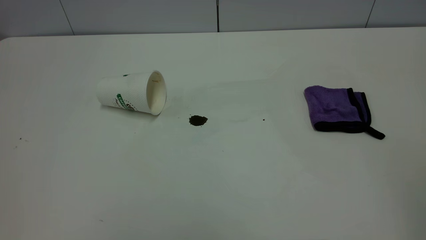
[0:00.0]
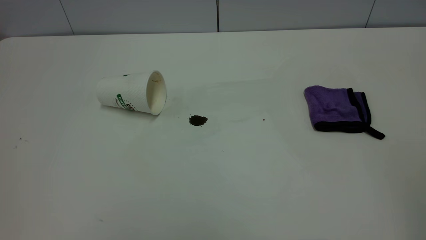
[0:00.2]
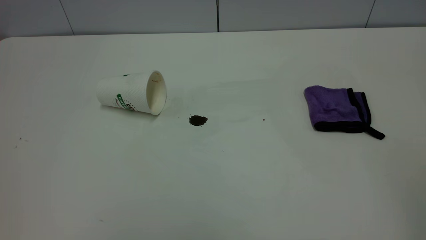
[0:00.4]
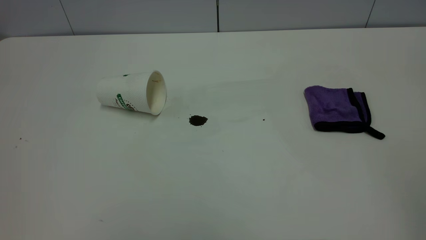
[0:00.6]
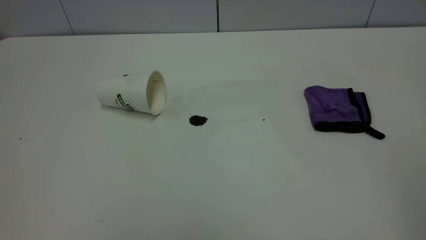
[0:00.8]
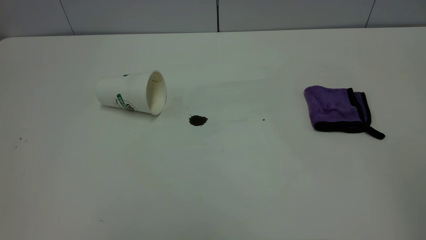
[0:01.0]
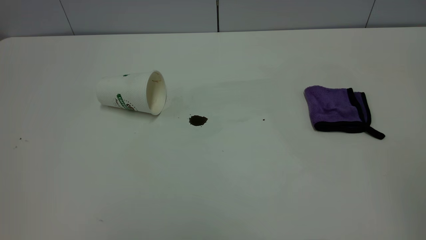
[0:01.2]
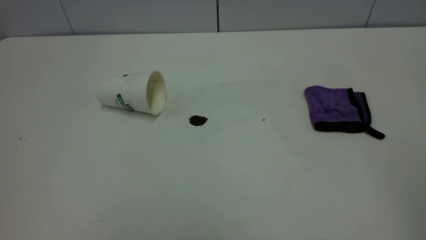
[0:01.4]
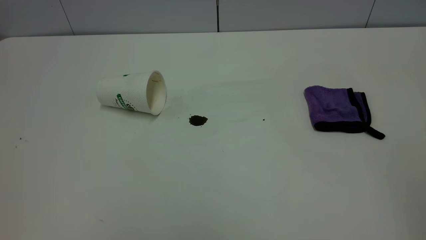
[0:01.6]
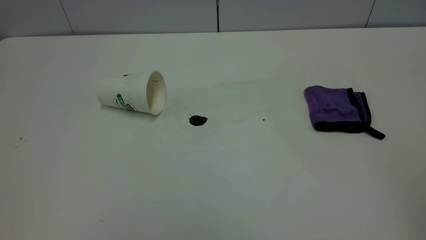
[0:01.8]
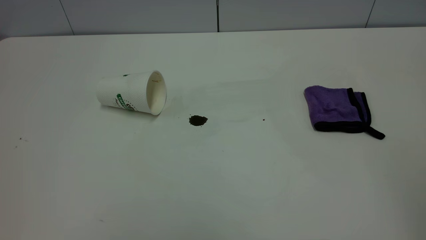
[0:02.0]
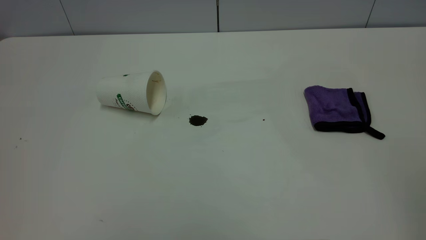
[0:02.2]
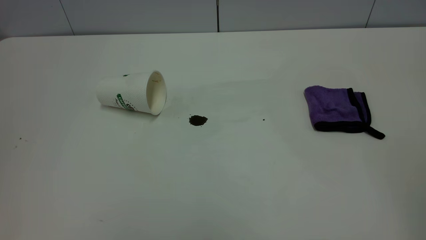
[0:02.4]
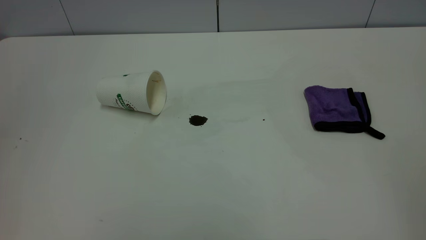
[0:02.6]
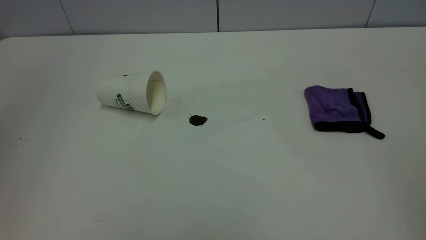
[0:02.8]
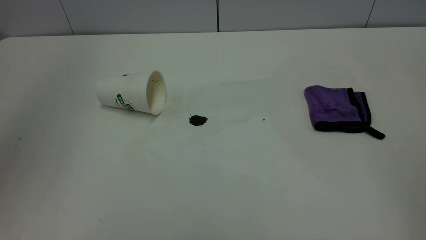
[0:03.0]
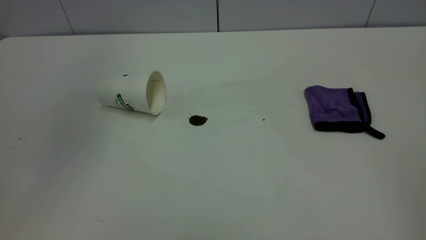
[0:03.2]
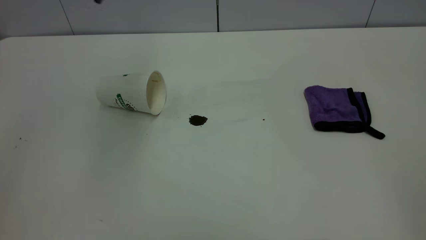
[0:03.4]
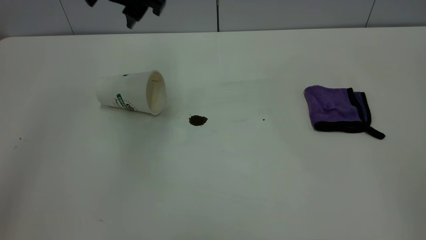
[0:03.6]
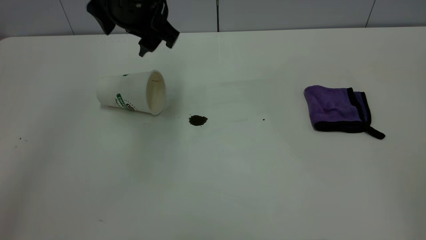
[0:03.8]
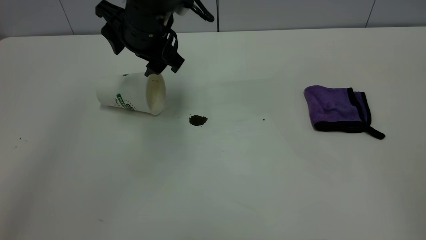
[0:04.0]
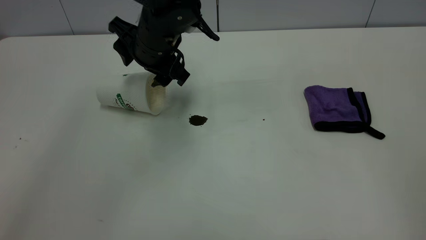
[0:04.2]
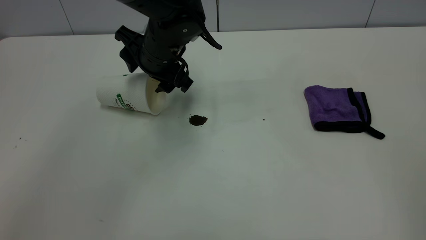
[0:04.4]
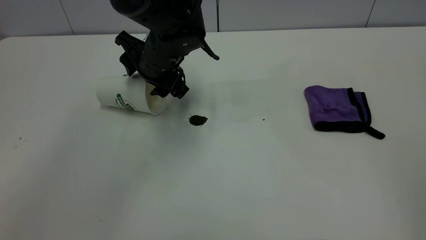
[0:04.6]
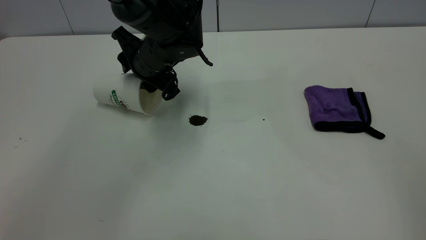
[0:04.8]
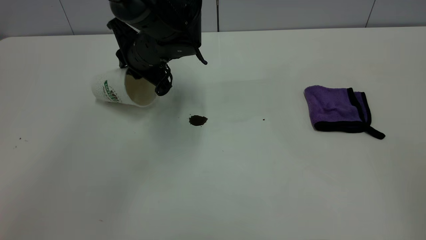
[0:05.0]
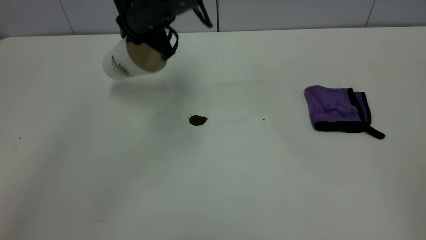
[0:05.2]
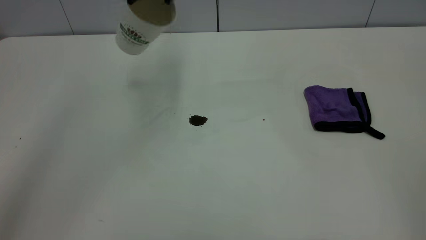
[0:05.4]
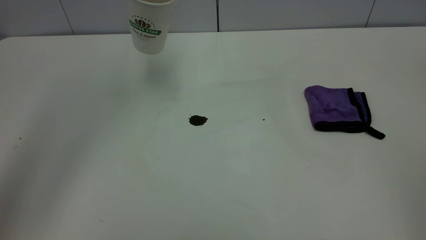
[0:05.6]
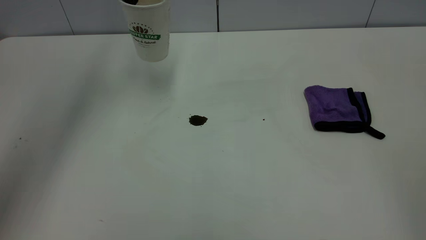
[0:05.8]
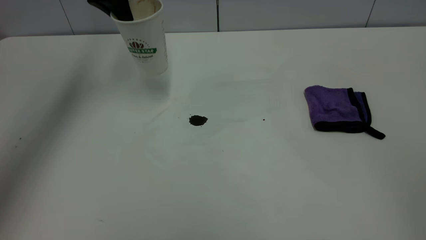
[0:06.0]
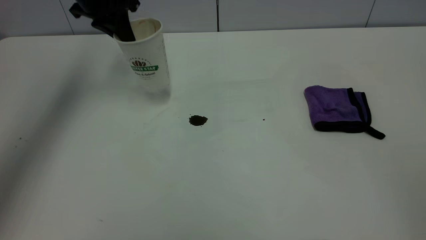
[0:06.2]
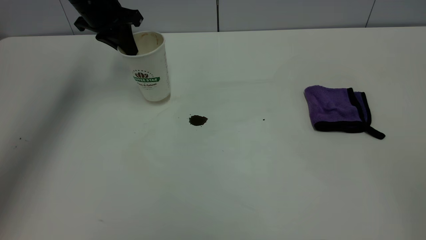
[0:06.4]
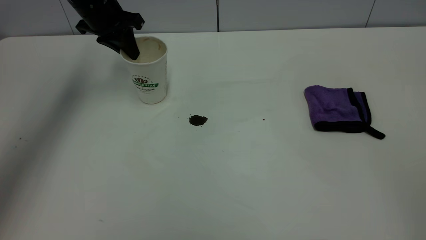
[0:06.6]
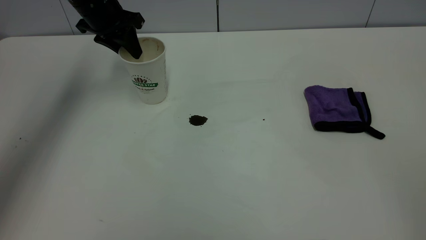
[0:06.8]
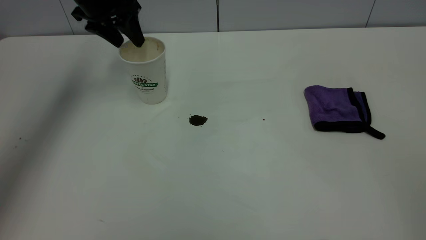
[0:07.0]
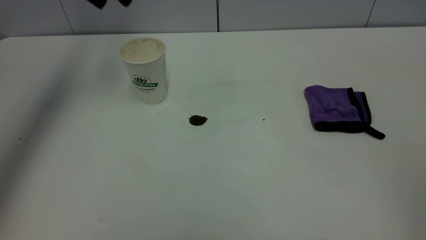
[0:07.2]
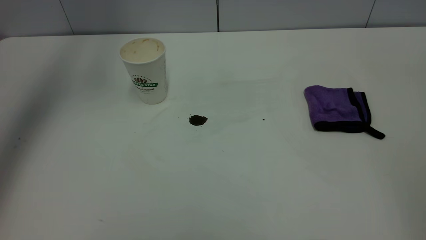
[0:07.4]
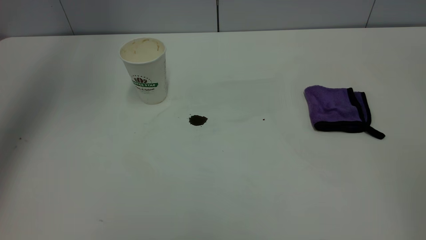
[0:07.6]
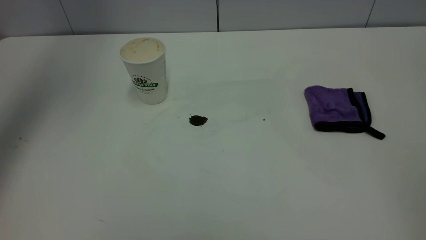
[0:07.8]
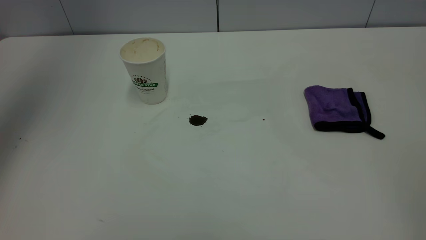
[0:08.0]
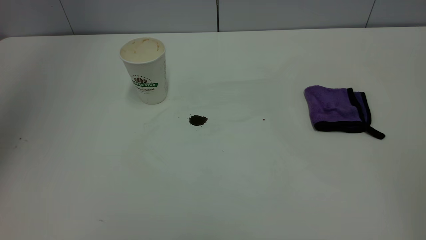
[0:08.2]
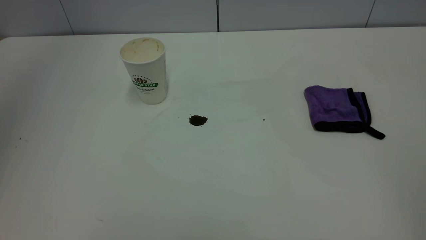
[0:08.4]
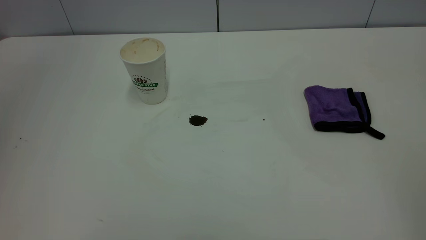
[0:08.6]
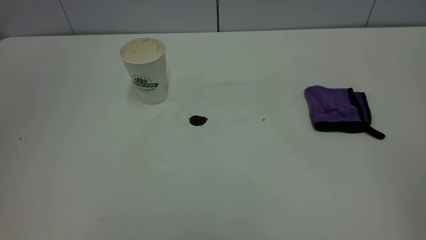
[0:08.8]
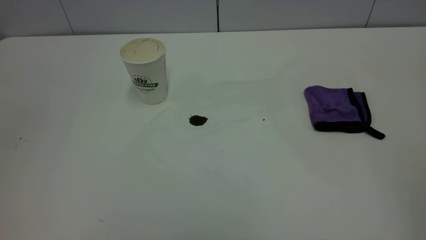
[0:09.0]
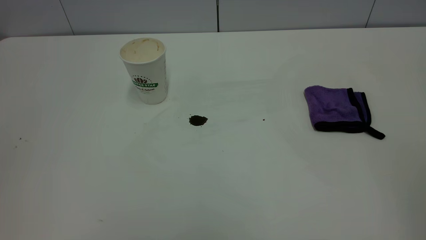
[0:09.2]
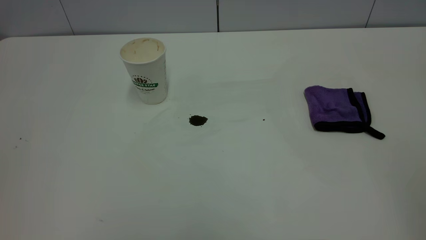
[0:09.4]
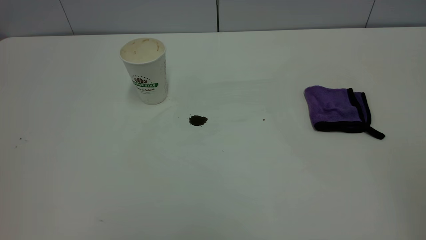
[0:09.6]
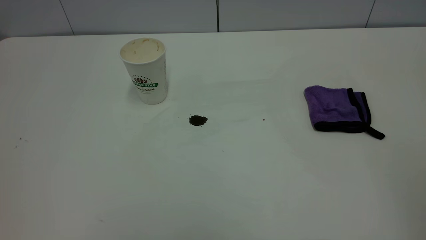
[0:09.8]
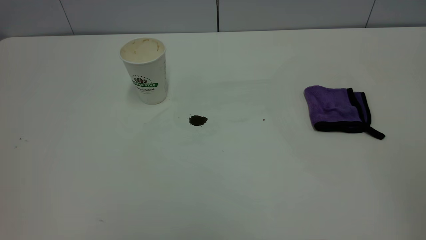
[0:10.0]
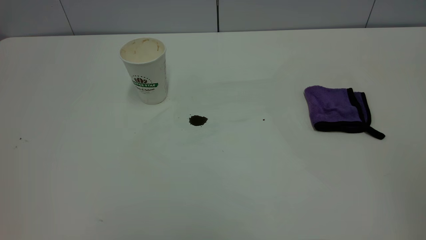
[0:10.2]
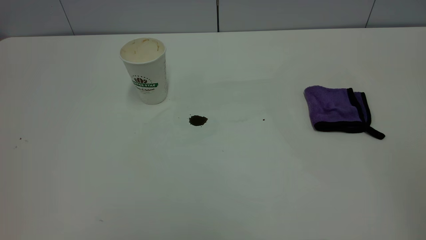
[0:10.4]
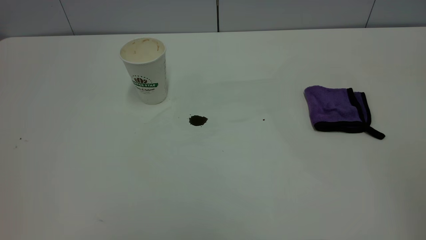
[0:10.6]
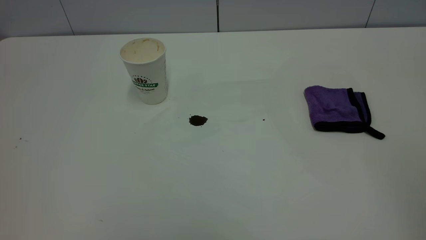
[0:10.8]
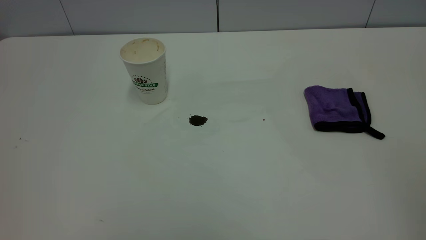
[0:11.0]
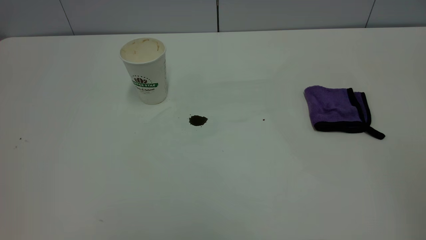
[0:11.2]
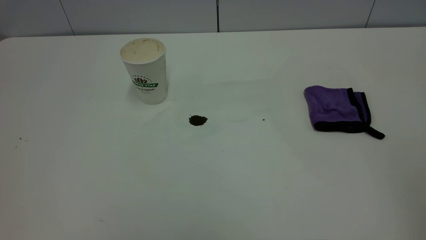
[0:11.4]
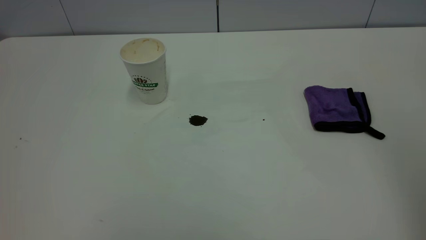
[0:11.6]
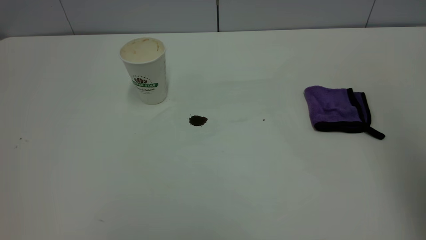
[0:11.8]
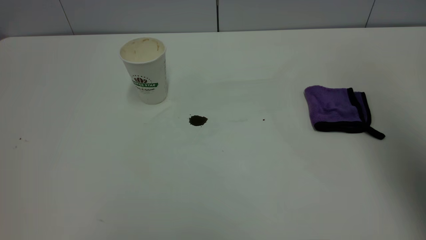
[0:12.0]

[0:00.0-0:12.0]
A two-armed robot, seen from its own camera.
Task of the whole recording: the left gripper pick up the fallen cup and place it upright, the right gripper grasp the purple rag and wipe the coffee stain on the table, the right gripper put the purple rag back in its original position.
Step, 0:00.0 to 0:07.0: Stand the paper cup upright.
0:00.0 to 0:01.6: Neither gripper changes place.
0:01.6 to 0:03.0: The left gripper moves forward, about 30 cm.
0:03.0 to 0:04.4: The left gripper shifts about 35 cm downward, to the right and forward.
0:04.4 to 0:06.0: The left gripper travels to the left, upward and forward by some 20 cm, and closes its fingers.
0:06.0 to 0:07.6: The left gripper shifts roughly 20 cm upward, and opens its fingers.
0:07.6 to 0:09.0: The left gripper moves backward, some 35 cm, and closes.
0:10.4 to 0:12.0: The right gripper moves forward, roughly 25 cm, and opens its fingers.

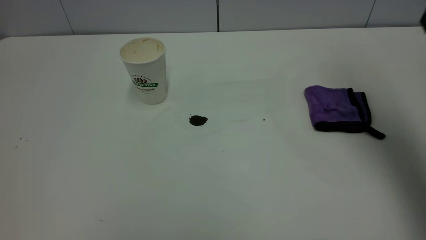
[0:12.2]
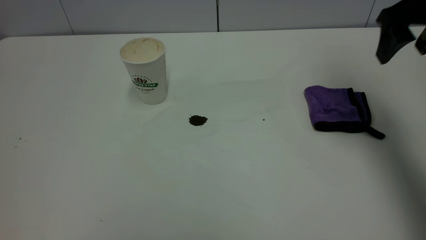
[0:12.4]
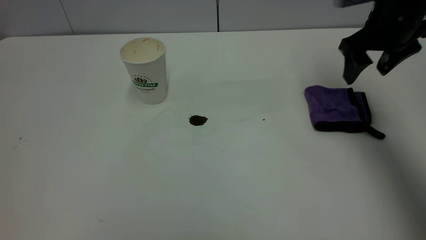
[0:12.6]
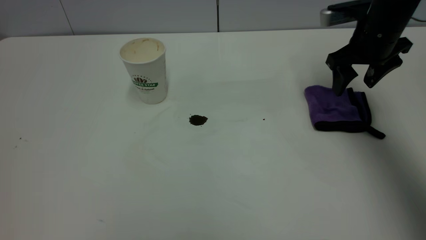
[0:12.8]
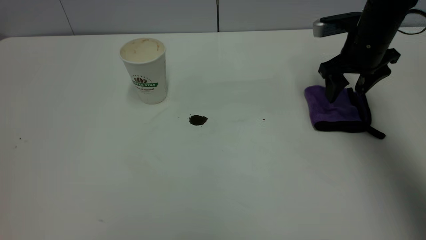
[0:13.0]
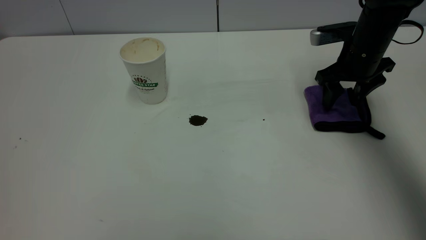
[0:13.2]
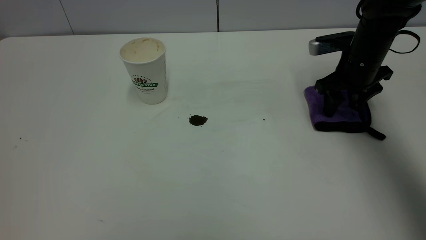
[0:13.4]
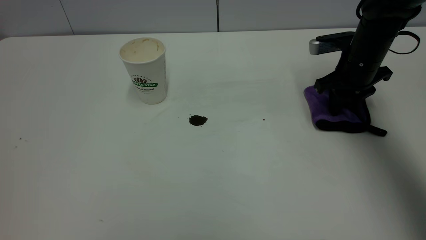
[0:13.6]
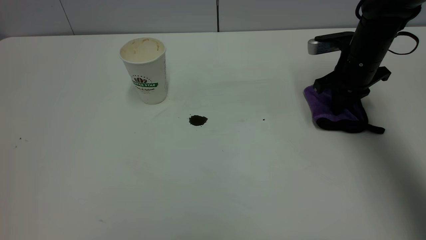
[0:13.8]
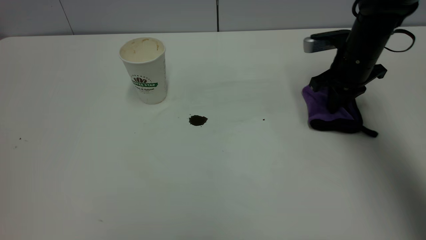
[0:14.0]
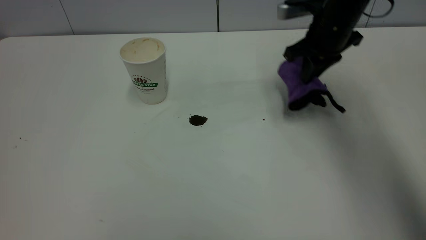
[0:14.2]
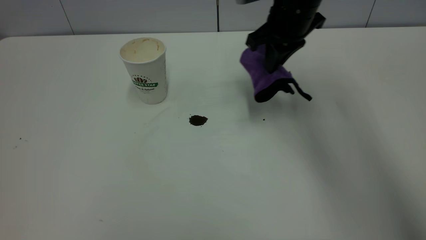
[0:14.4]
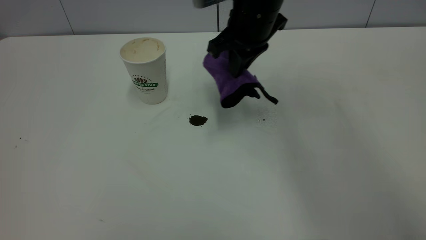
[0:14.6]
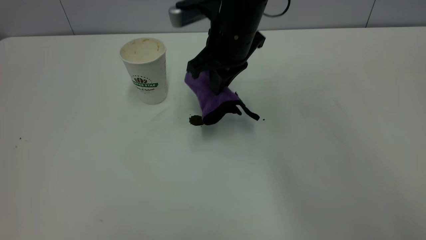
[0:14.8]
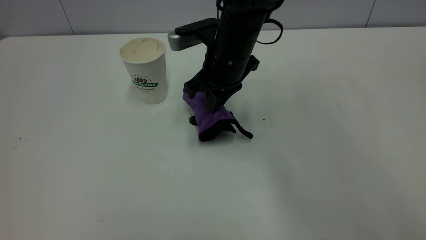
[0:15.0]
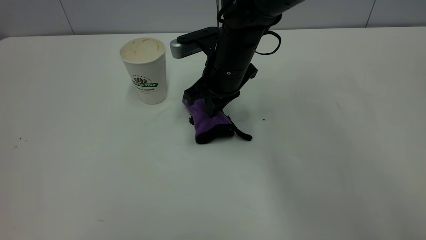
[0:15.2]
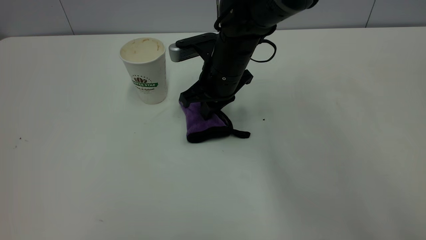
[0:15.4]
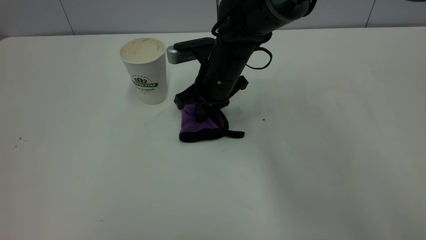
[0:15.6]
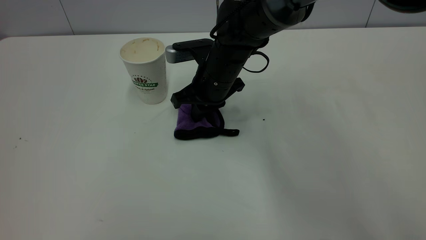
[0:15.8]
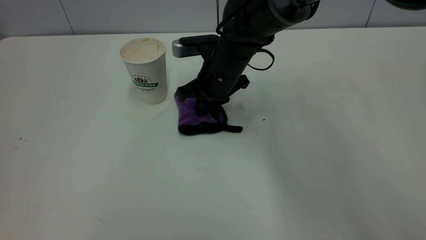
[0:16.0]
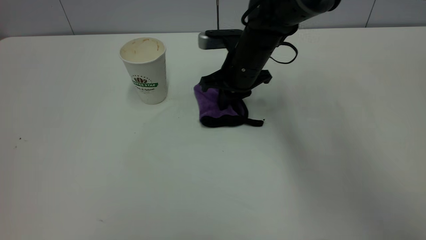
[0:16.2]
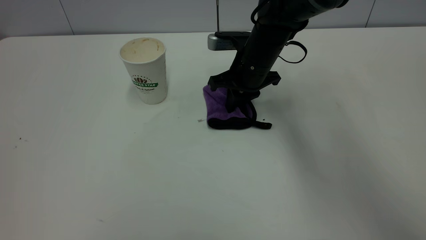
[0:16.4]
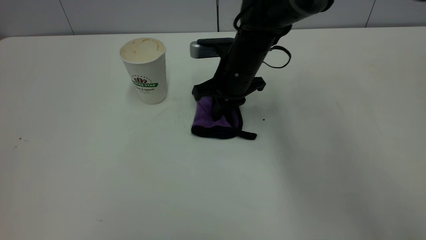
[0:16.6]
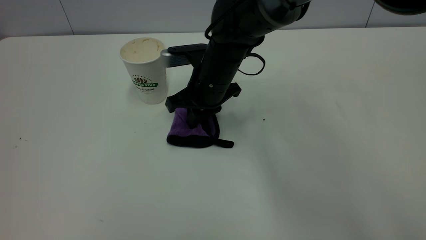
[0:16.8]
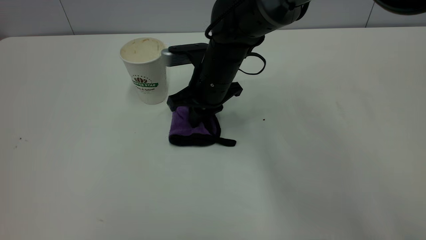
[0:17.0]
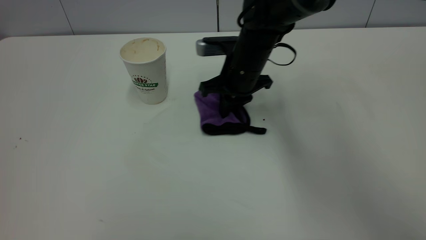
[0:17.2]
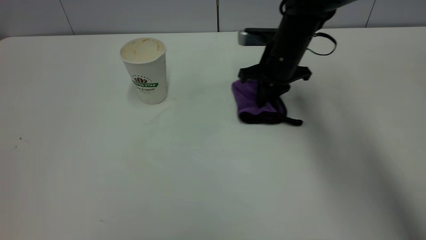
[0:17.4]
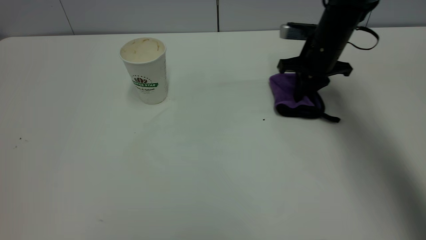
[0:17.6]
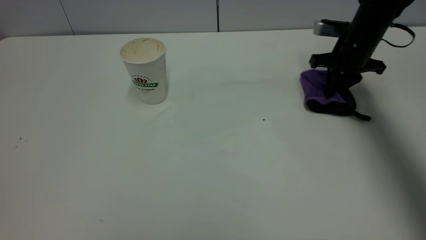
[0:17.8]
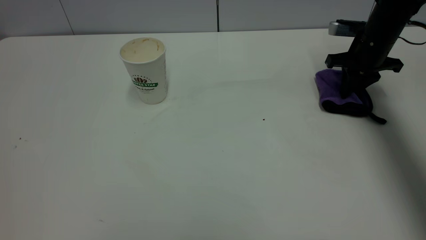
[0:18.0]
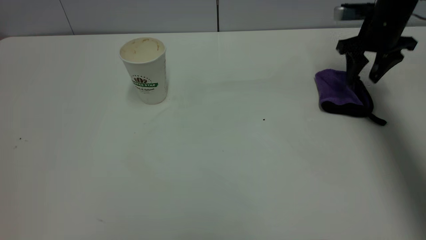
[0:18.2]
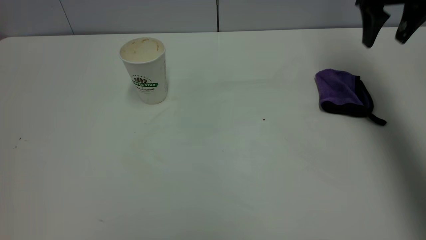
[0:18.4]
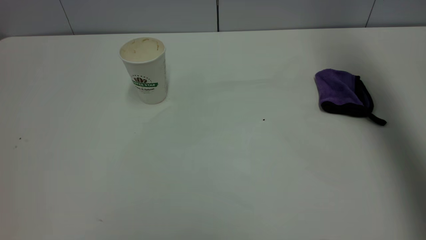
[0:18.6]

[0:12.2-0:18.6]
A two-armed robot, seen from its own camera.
Task of the whole recording: the left gripper pick up the fallen cup and place it upright, the right gripper grasp the purple rag and wipe the coffee stain on the table, the right gripper put the purple rag back in its original position.
Step, 0:12.2 to 0:18.2: Wipe the stains off the table with a rag.
0:12.2 to 0:13.8: The right gripper is displaced downward and forward by about 25 cm, and closes.
0:13.8 to 0:15.4: The right gripper shifts approximately 25 cm to the left.
0:17.0 to 0:18.6: The right gripper travels to the right and upward by roughly 40 cm, and opens up.
